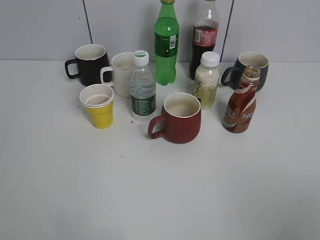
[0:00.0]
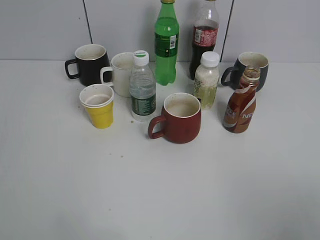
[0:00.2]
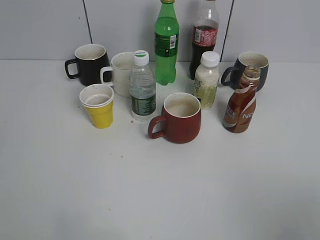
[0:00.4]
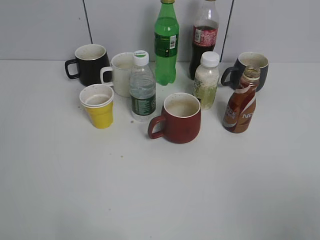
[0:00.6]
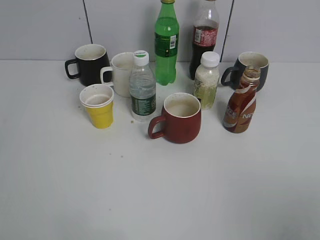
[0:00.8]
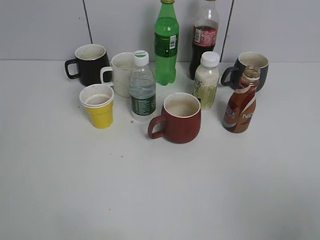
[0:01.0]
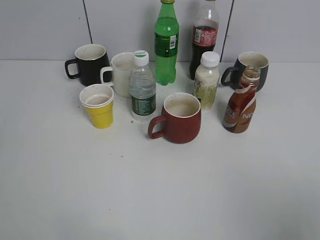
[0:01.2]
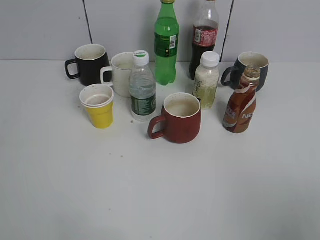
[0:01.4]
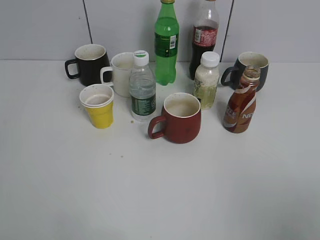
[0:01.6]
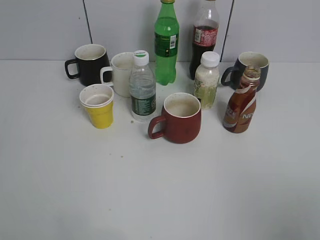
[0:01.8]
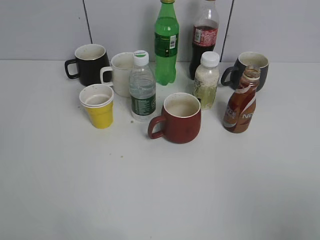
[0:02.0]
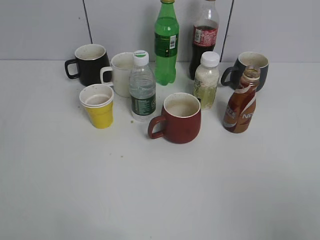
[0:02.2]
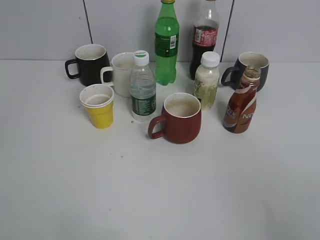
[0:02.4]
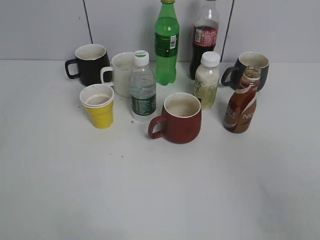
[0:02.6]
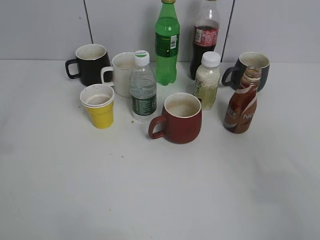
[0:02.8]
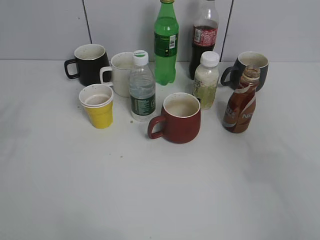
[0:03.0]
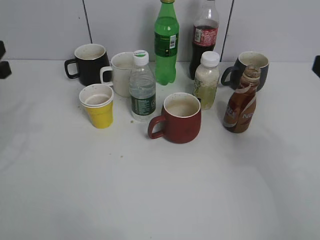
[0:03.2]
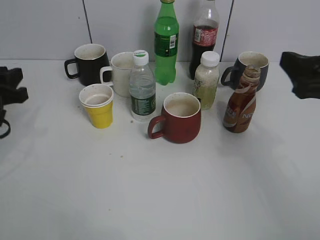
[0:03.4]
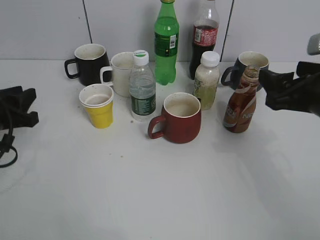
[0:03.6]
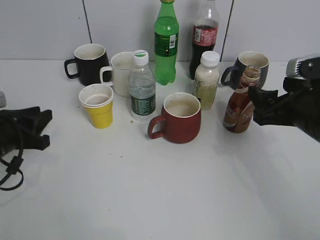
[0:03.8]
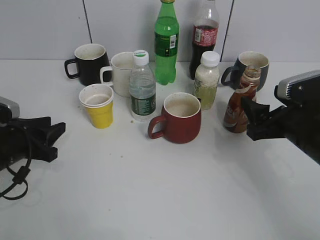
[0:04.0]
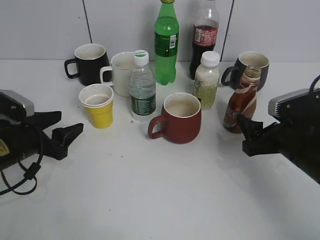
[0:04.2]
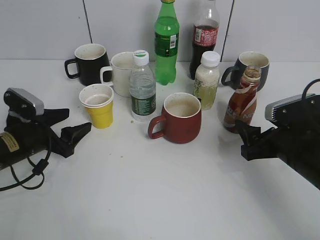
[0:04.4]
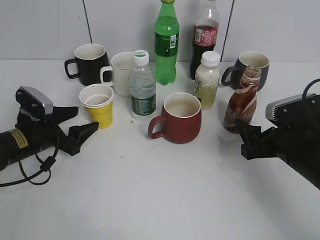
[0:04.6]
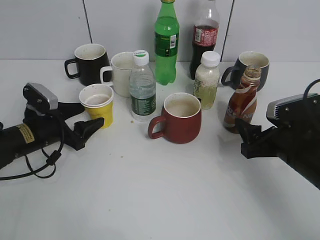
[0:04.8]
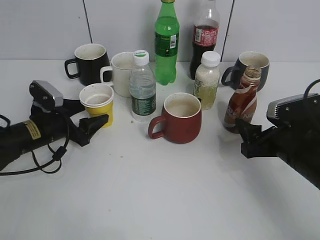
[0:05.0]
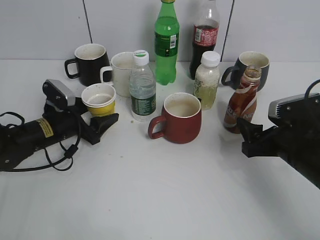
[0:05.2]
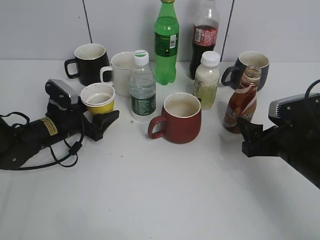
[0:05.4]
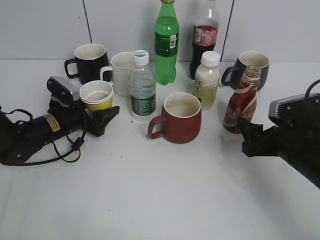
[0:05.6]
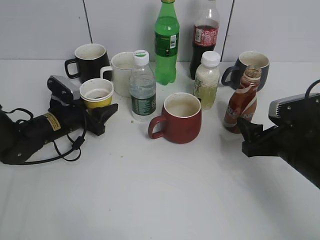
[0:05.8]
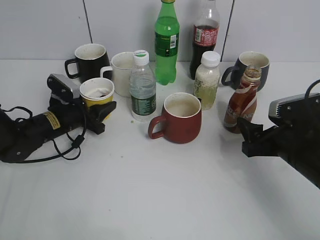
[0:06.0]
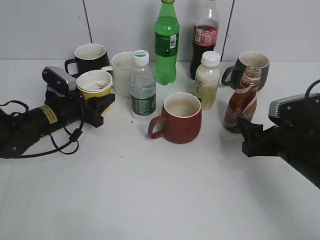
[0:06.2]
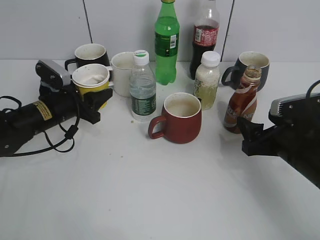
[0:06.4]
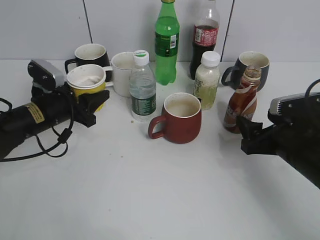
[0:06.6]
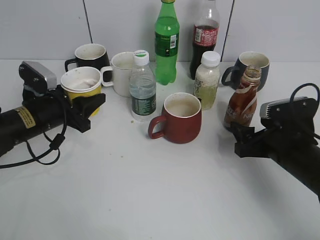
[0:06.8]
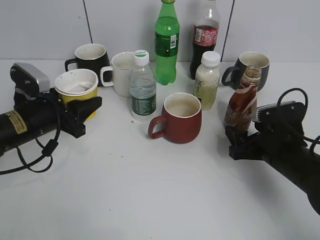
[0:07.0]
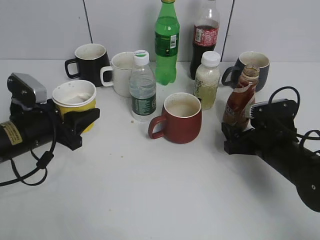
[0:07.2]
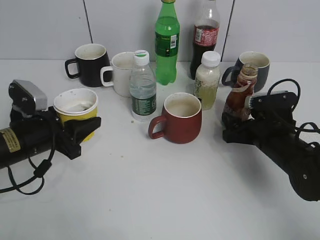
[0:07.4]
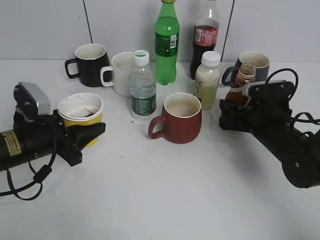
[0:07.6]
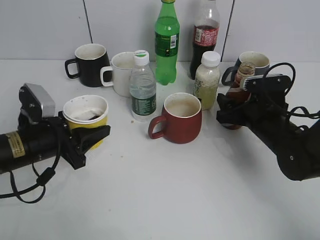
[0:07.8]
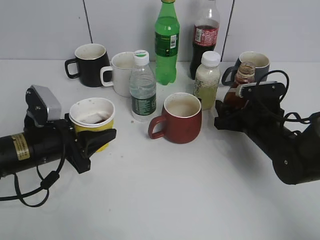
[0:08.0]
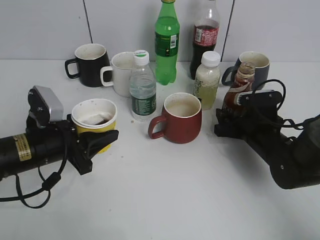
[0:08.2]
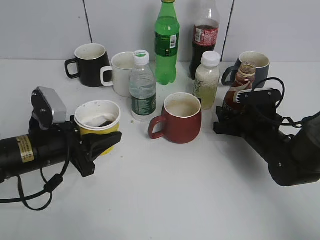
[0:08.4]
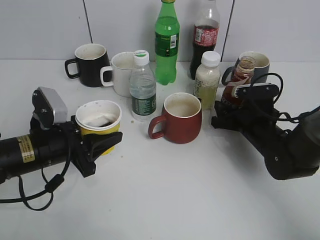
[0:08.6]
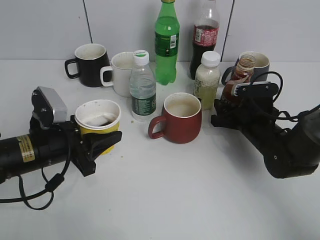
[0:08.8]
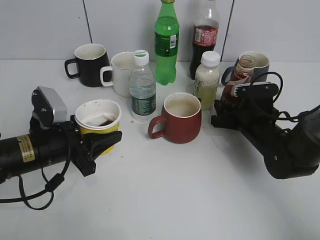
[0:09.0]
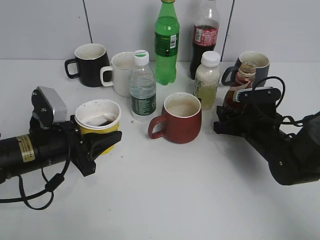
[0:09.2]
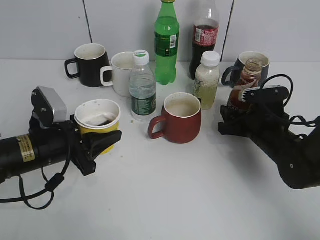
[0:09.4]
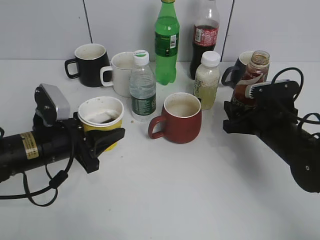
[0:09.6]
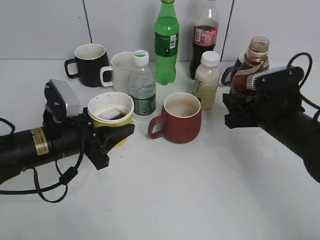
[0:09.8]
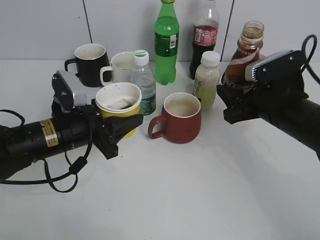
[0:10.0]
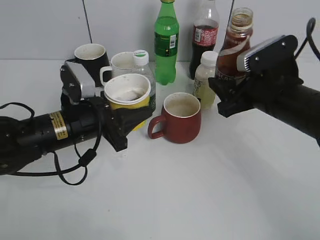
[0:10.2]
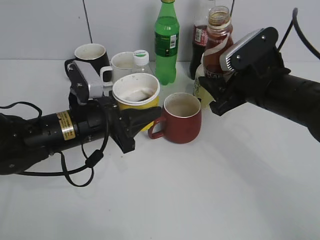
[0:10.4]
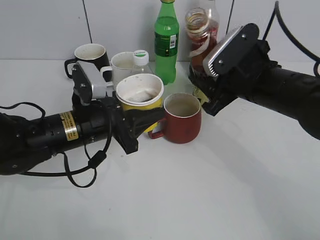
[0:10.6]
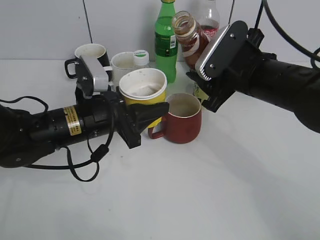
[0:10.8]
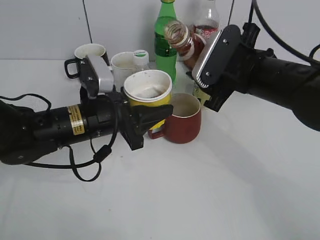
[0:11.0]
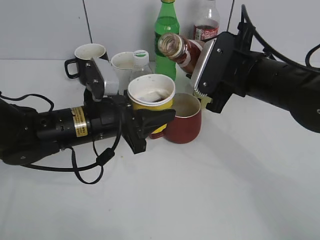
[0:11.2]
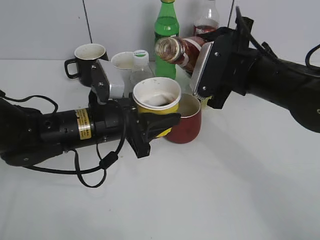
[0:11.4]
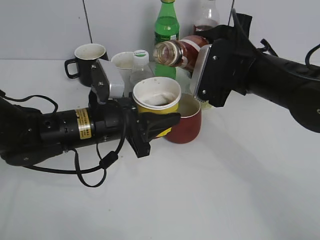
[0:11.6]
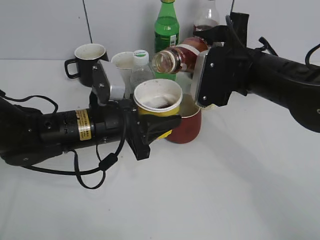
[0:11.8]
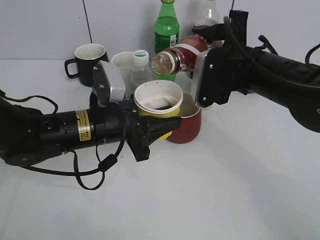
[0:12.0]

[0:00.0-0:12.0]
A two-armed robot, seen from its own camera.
Step, 0:01.8 to 0:05.6: Grasp the yellow paper cup with left gripper.
Step, 0:06.0 to 0:06.6: Lift the yellow paper cup with left gripper.
Step, 0:06.8 to 0:08.4: Grasp the bottle with coffee with right gripper.
0:01.6 to 0:03.0: The right gripper is displaced forward by approximately 15 cm.
0:03.0 to 0:04.4: The left gripper is displaced downward by some 20 cm, and opens. The right gripper shifts about 20 cm downward and forward.
0:04.4 to 0:06.0: The left gripper moves forward, some 10 cm, and closes up.
0:06.0 to 0:07.6: The right gripper shifts roughly 5 cm forward, while the left gripper goes roughly 10 cm backward and upward.
0:07.6 to 0:09.0: There are only small adjustments of the grippers.
0:09.0 to 0:10.4: The right gripper travels upward by some 15 cm. The left gripper moves to the right, about 5 cm.

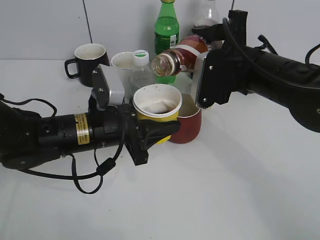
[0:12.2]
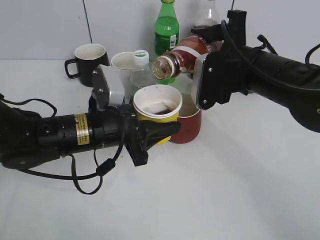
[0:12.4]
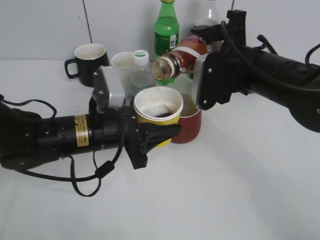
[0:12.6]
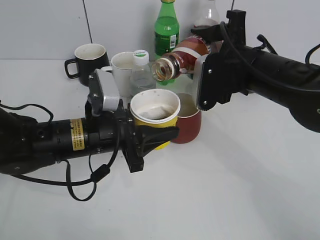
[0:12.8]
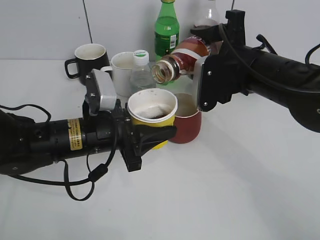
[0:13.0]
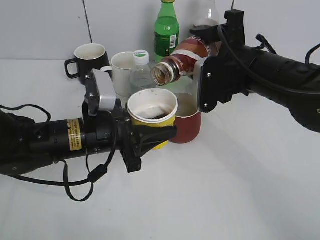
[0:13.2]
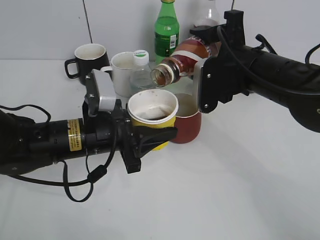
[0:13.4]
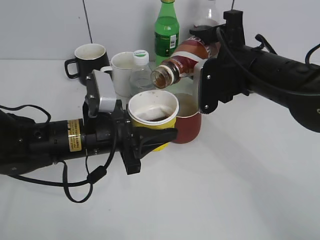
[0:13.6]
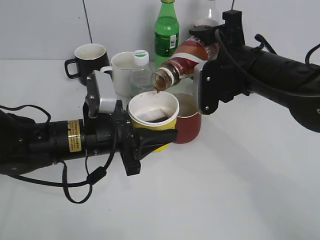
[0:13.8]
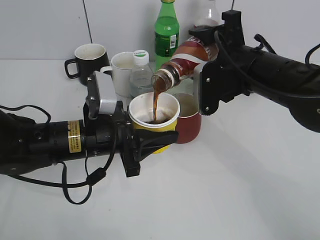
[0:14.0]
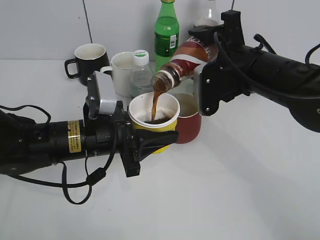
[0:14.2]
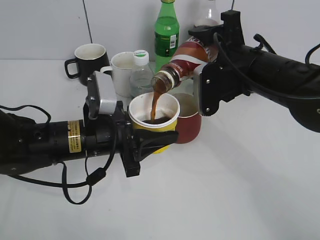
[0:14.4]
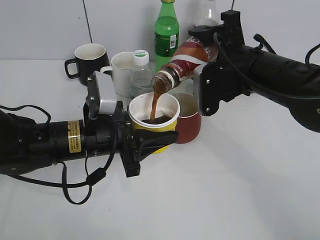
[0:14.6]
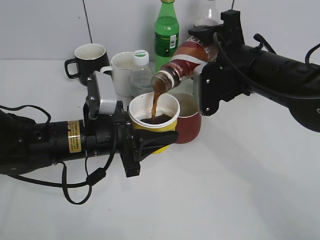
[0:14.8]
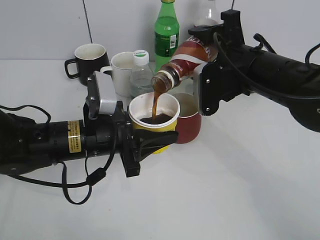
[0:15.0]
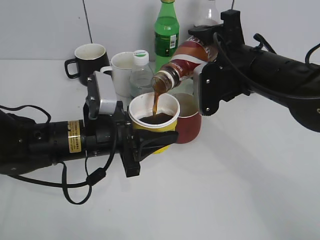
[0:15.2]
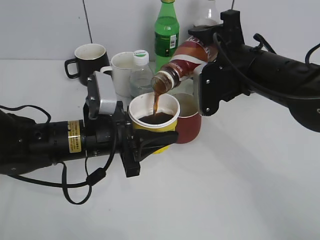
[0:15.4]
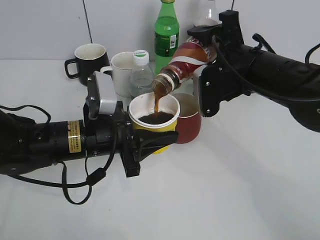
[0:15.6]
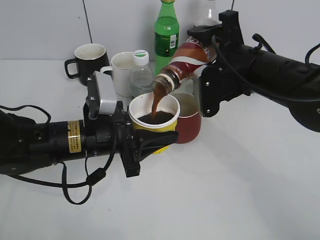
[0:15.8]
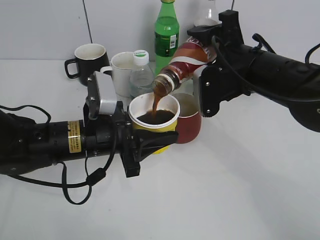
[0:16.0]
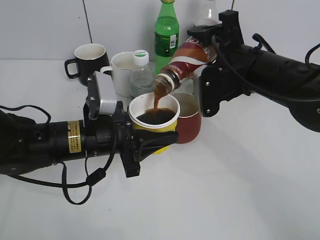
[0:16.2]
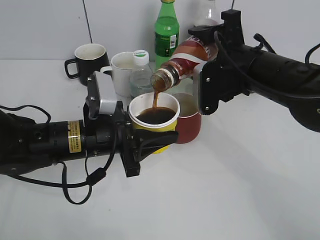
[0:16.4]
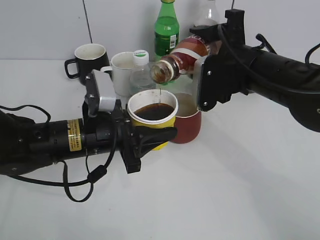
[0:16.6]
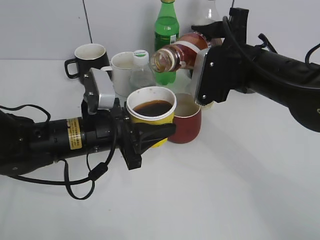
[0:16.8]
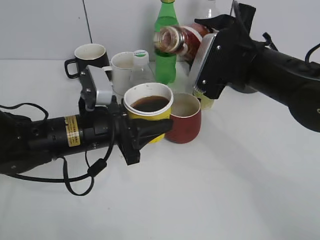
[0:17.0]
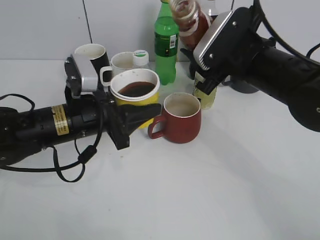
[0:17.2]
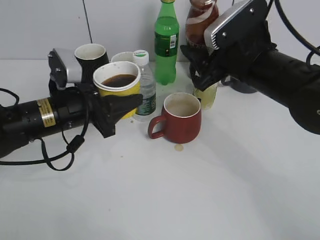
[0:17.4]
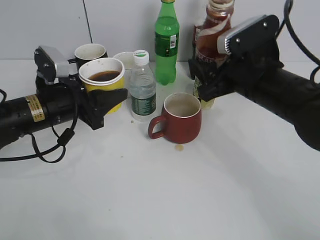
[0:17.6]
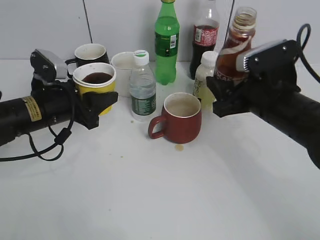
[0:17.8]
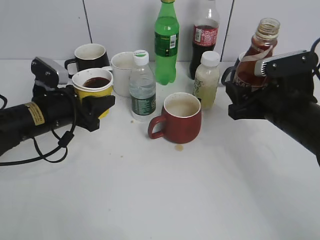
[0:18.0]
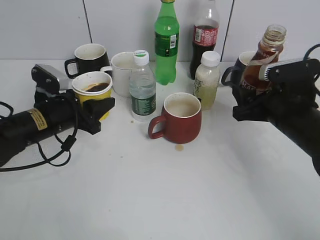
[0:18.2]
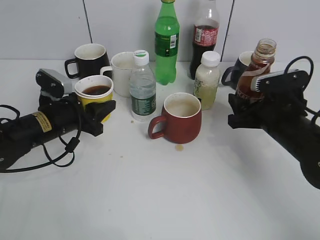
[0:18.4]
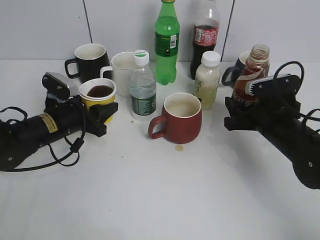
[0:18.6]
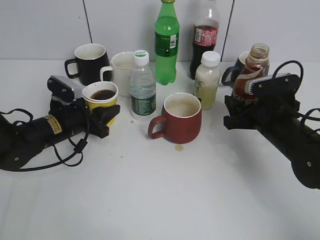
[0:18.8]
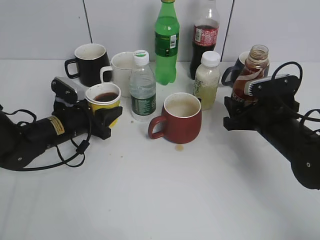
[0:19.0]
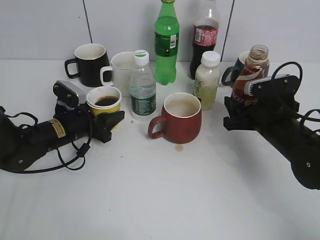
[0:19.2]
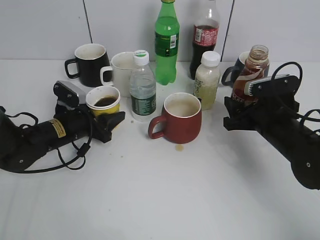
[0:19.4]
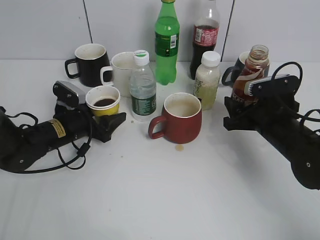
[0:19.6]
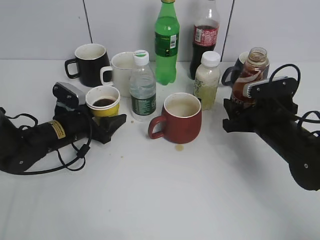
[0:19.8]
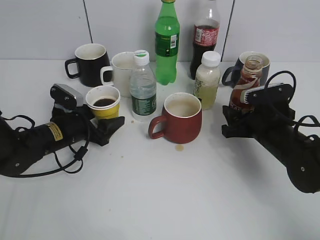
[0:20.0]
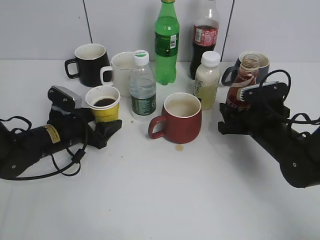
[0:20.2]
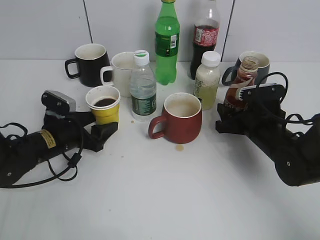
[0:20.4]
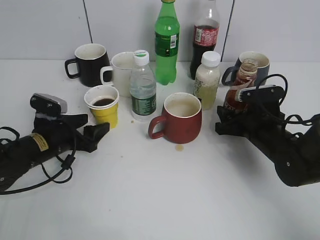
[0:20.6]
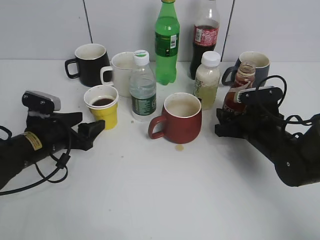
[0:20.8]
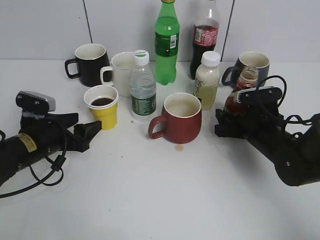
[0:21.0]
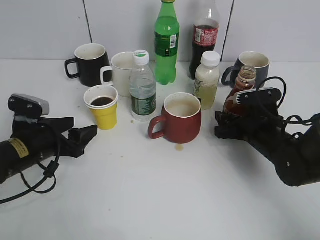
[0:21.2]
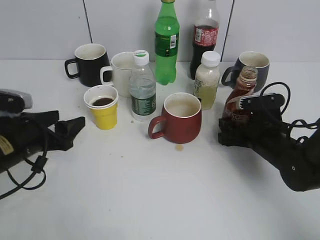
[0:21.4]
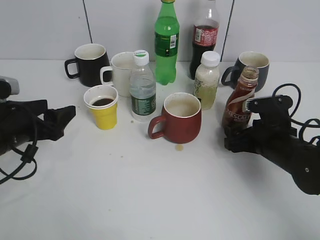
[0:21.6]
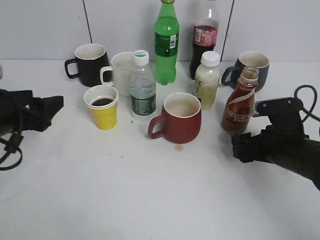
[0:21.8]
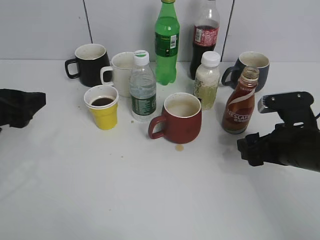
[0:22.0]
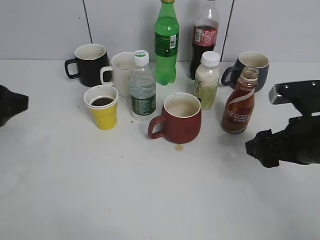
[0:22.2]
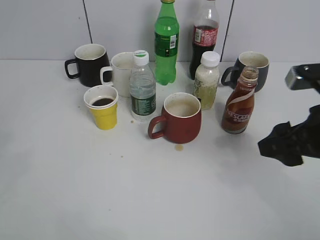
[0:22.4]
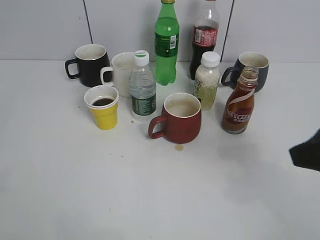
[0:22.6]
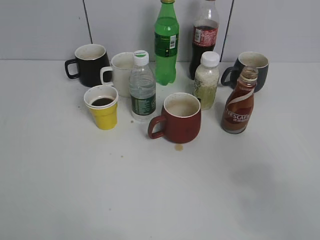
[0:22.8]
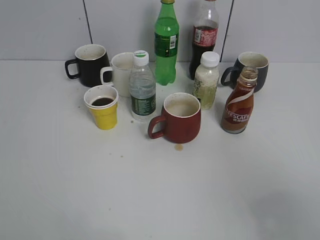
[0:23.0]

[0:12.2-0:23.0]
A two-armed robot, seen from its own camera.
Step, 0:12.2 to 0:17.2: Pour the coffee from bottle to cup with right gripper.
Step, 0:17.6 to 0:21.6: Place the coffee bottle on the table with right gripper.
0:12.2 to 0:13.8: The grippers make only small movements.
0:13.8 to 0:15.2: Both grippers stay about where they are.
0:15.2 to 0:16.8: The grippers move only a little.
0:16.8 to 0:18.4: The left gripper travels to the left and forward by about 10 cm. Meanwhile the right gripper is displaced downward and to the right by roughly 10 cm.
0:18.4 to 0:20.0: The left gripper changes place by roughly 5 cm, and opens.
0:20.0 to 0:21.4: The left gripper travels backward by roughly 10 cm.
0:21.4 to 0:23.0: Both grippers move backward and upward, some 35 cm.
